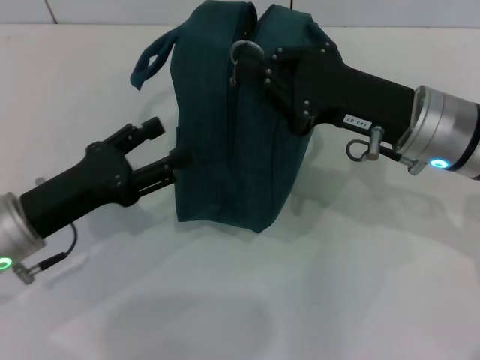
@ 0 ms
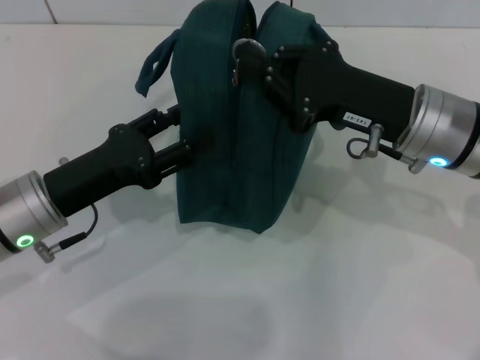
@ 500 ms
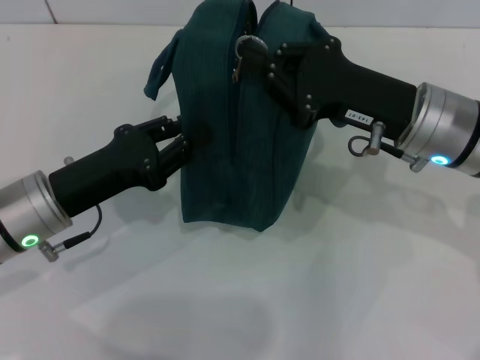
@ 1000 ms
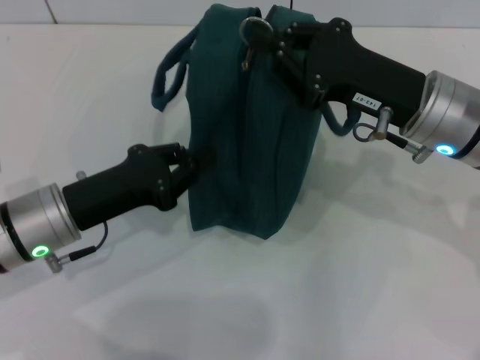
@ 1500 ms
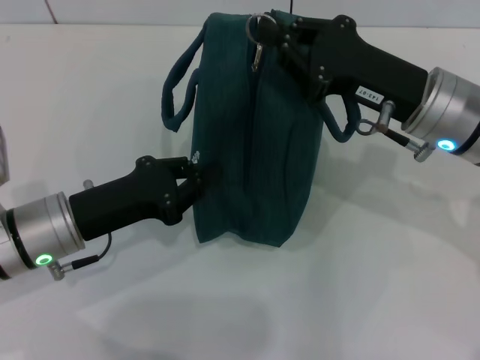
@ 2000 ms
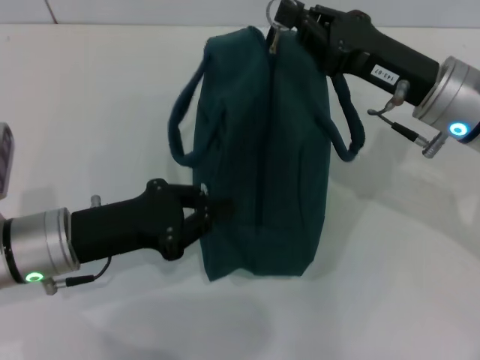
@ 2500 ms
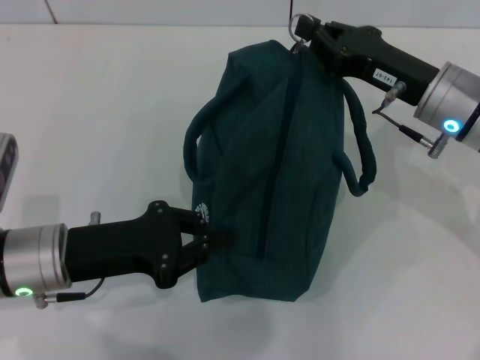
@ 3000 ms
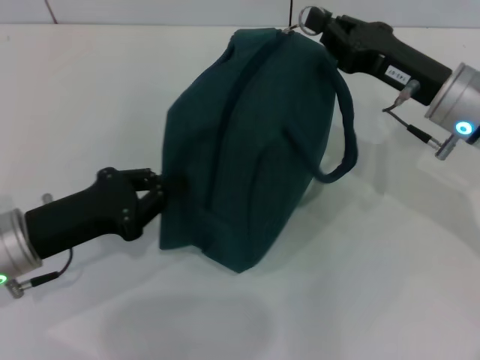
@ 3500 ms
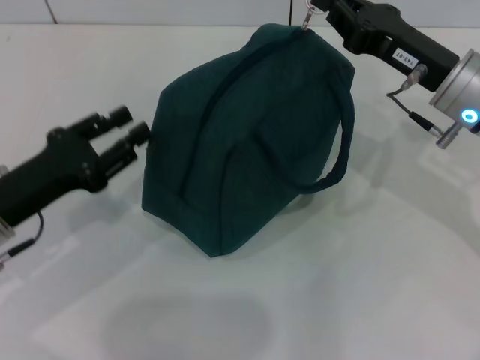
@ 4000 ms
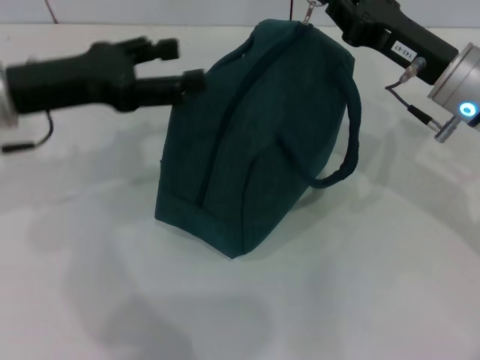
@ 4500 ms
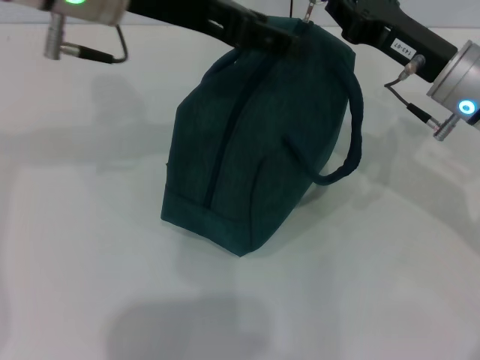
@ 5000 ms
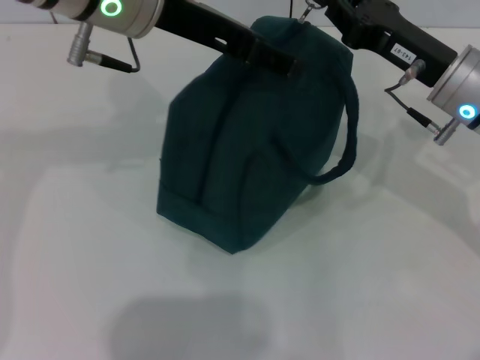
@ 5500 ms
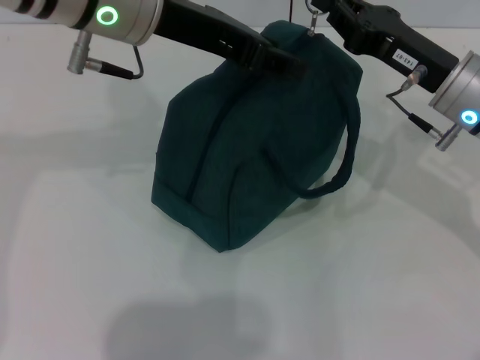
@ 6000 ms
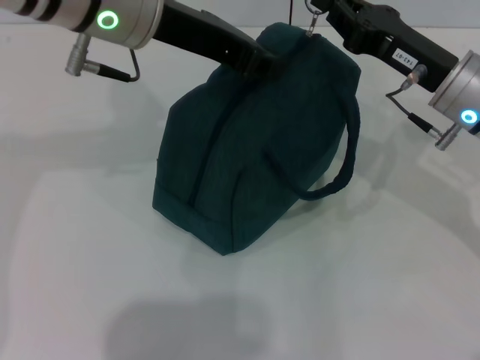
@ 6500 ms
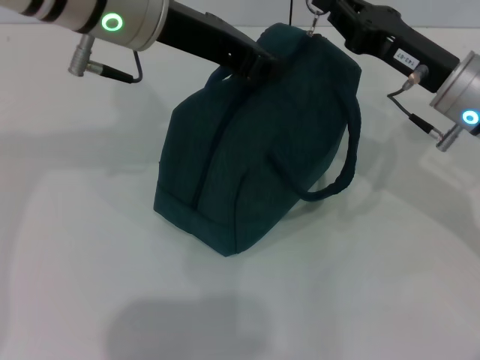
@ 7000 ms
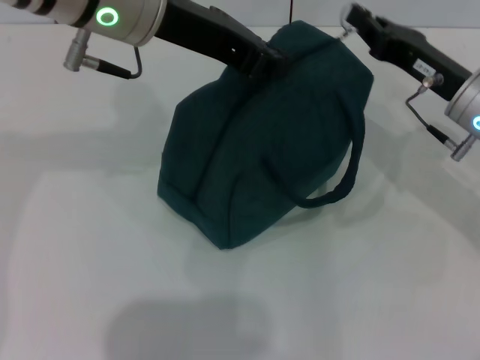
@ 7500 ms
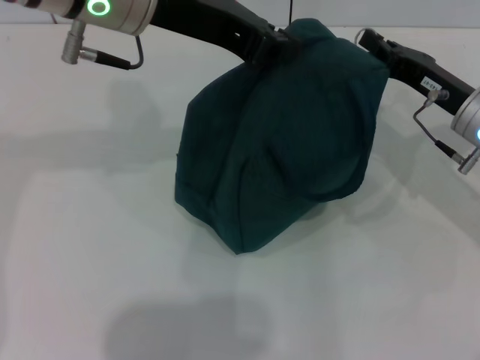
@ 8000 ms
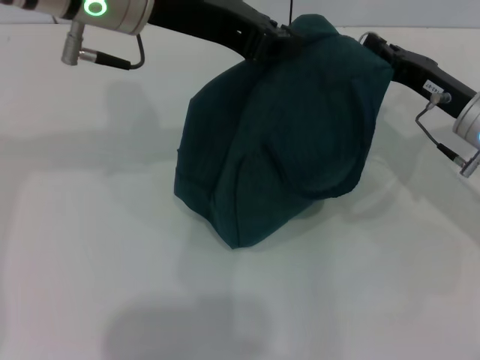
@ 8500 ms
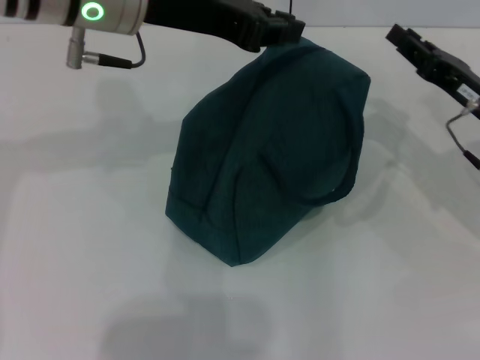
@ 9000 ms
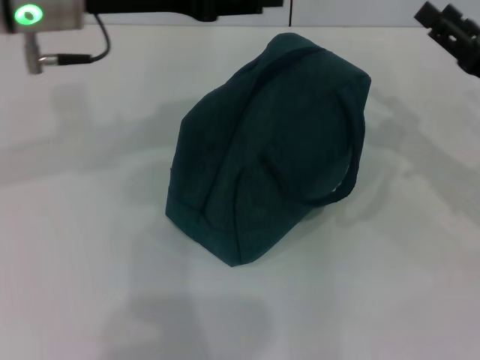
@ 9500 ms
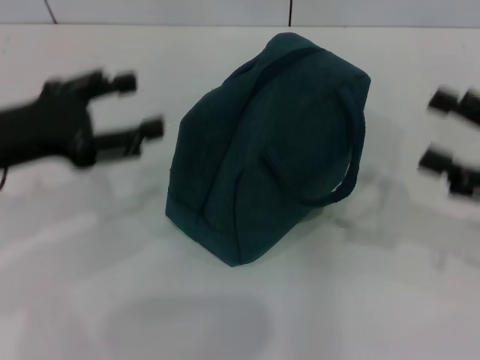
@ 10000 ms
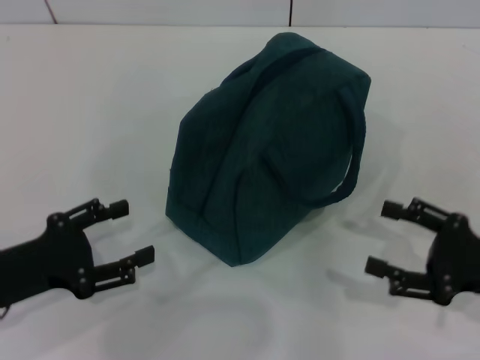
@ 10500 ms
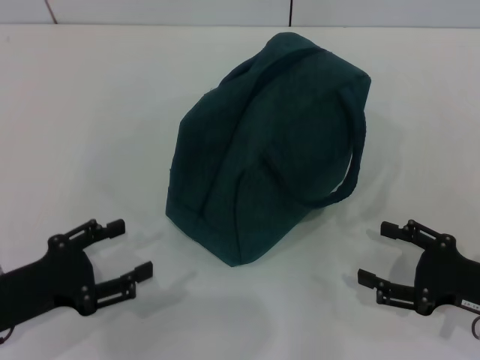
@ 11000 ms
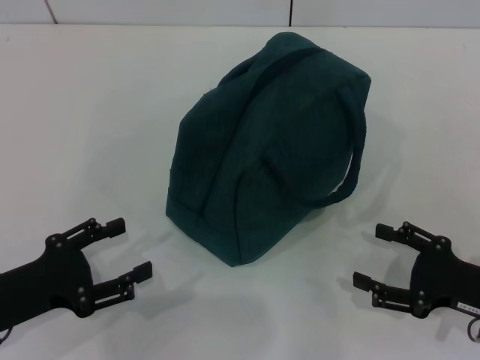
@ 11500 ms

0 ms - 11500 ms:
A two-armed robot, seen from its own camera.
Step, 0 ms - 8500 ms: Zip up the lunch bag with your right hand.
Step, 9000 ms - 9500 ms: Hold the lunch bag with your left hand.
0 ms - 2000 ms: The left gripper closes.
2000 ms - 4000 ms: The left gripper shifts roughly 5 cm to the left.
4000 ms - 6000 ms: The left gripper travels upward, to the right and forward by some 25 cm, and opens up.
6000 ms - 7500 ms: The left gripper closes.
7500 ms - 9500 ms: The left gripper travels to the left by some 5 cm, and opens its fingers; the right gripper heads to the right, covering approximately 5 cm, and opens up.
9500 ms - 11500 ms: The left gripper shifts some 30 cm downward, backward and to the left, and opens. The right gripper travels backward and downward by about 15 cm.

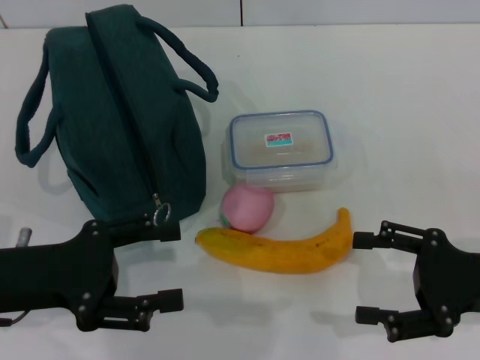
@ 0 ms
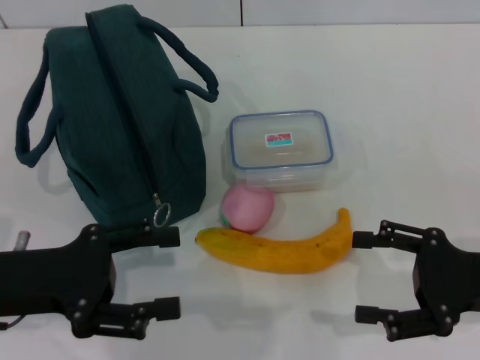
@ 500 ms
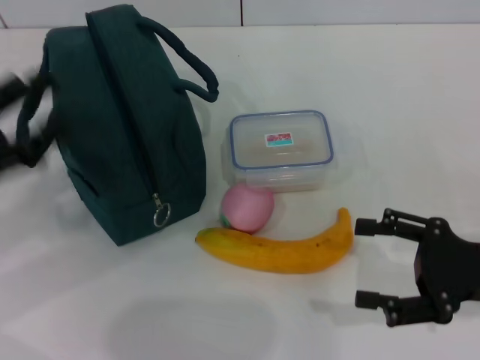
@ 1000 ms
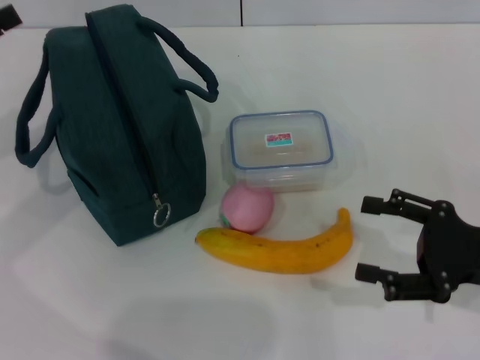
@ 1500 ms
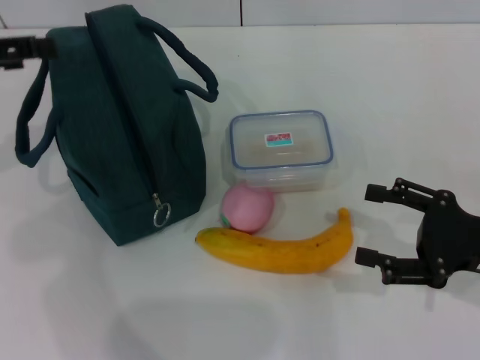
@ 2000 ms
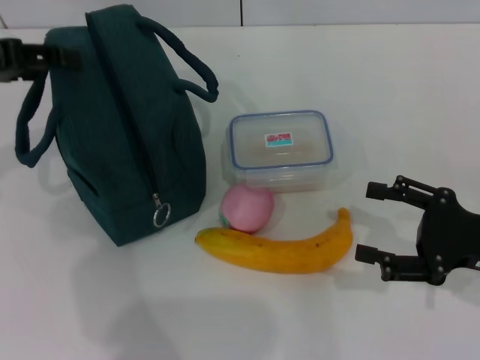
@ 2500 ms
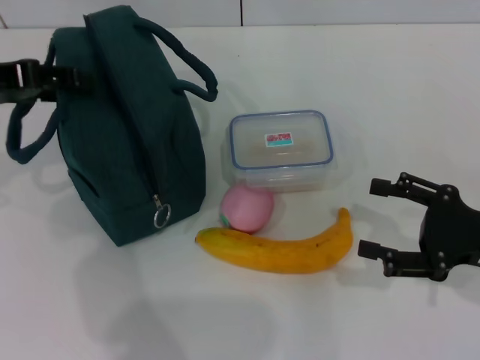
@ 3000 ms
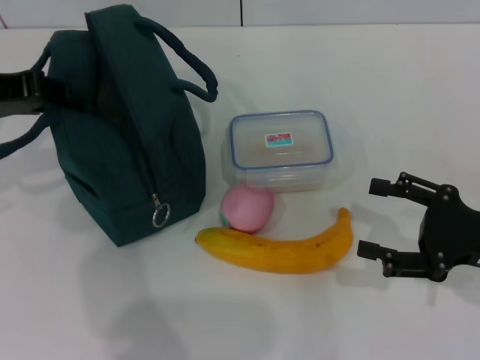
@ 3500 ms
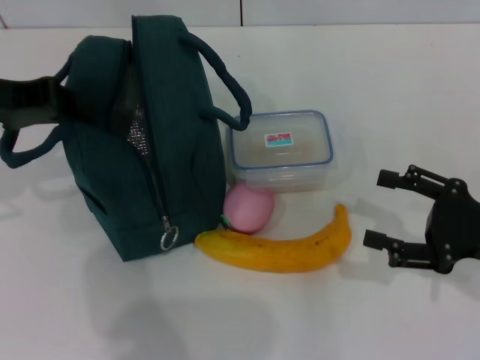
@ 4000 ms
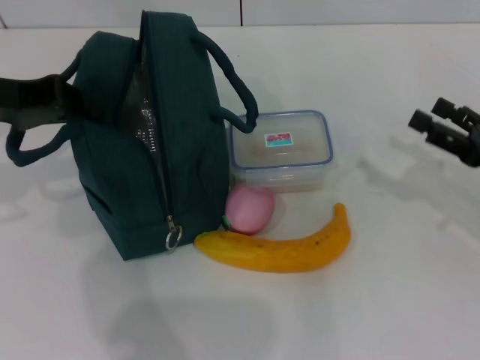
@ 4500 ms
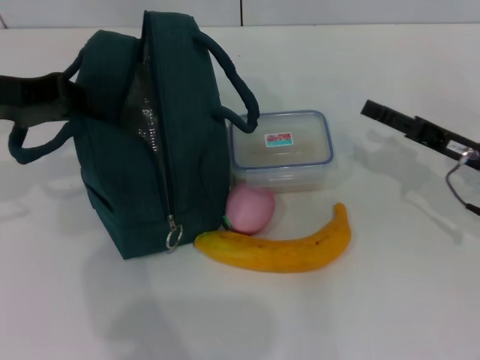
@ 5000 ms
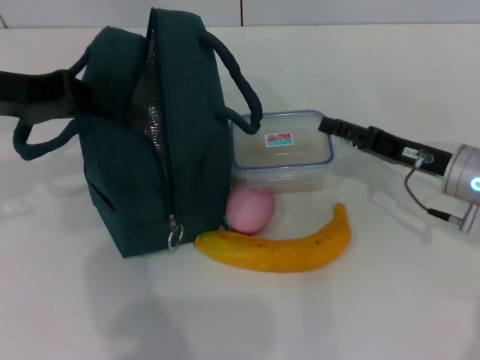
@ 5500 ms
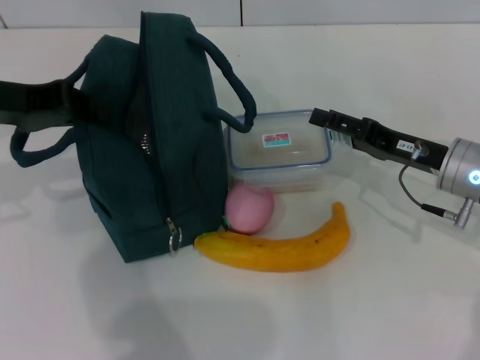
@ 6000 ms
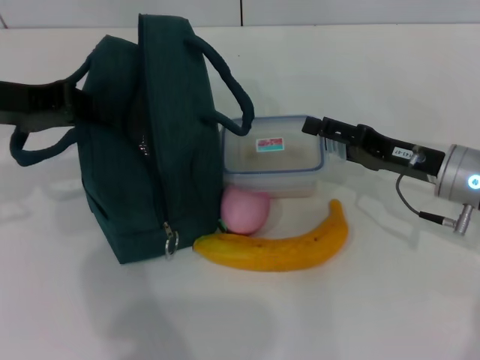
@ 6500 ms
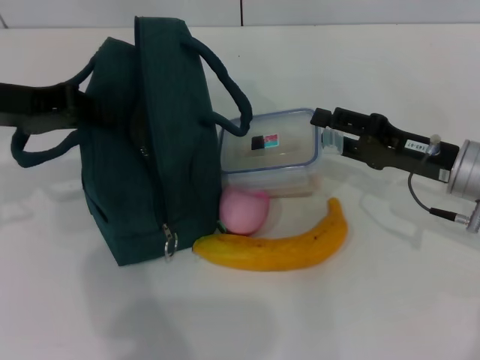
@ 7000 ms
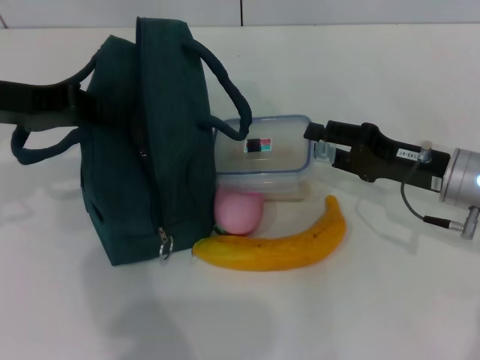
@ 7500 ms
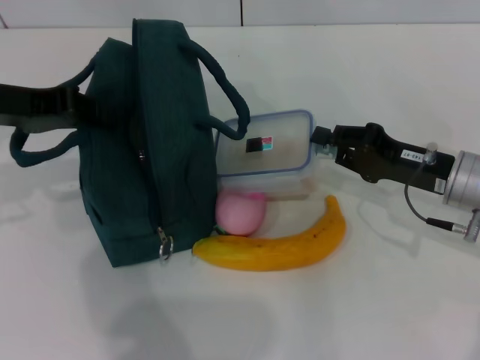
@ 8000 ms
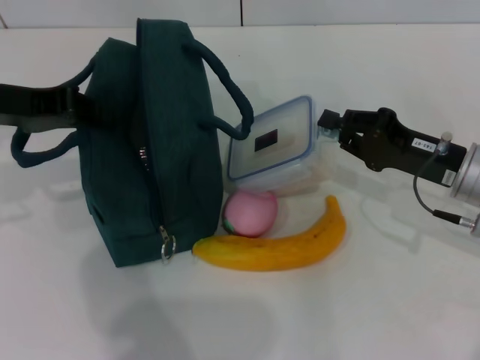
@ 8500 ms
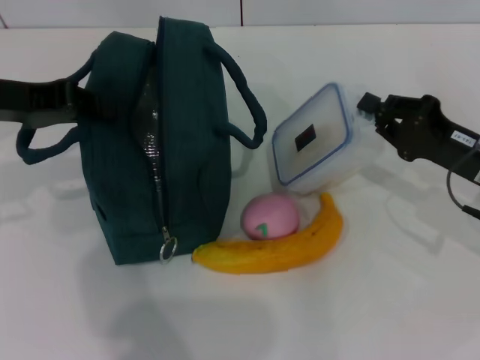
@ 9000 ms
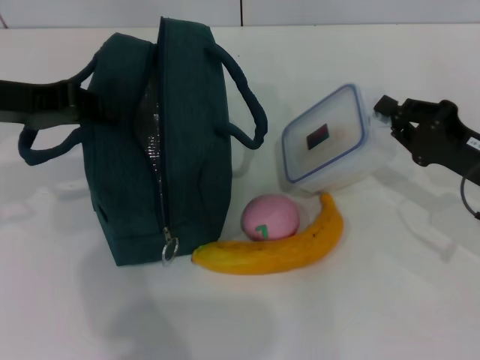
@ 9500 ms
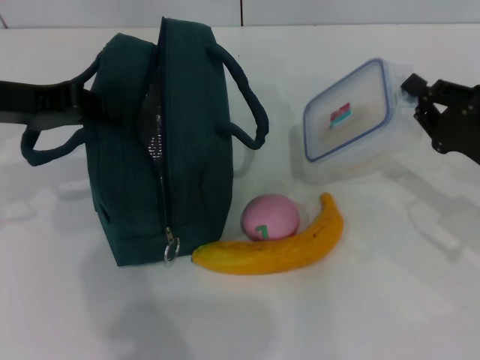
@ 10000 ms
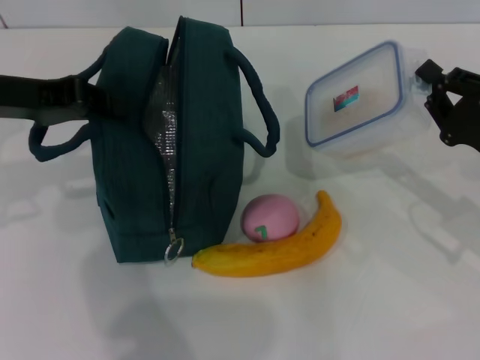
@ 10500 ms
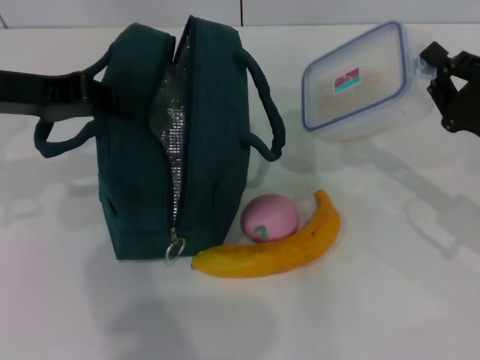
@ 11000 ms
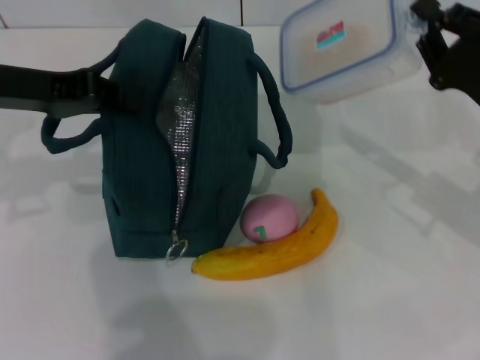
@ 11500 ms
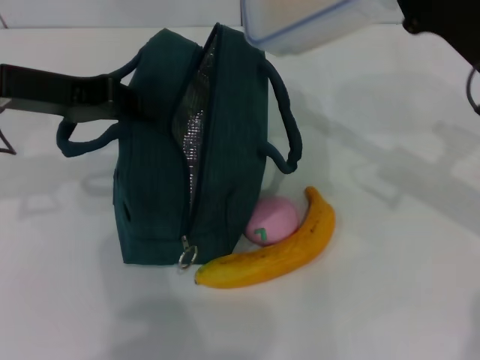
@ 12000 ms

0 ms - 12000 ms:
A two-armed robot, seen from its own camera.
Step, 0 ms - 3500 ms: Hold the lunch bag with your left hand.
Step, 4000 ms - 8000 ms: Pick up the lunch box with your right hand.
0 ms - 2000 ms: The left gripper moves upward, forward and to the left, some 15 cm.
2000 ms - 4000 ms: The left gripper ends up some 5 cm from where it was, and closes its fingers.
4000 ms - 6000 ms: The right gripper heads forward and to the left, covering some 10 cm.
6000 ms - 8000 ms: The right gripper closes its fingers.
8000 ms - 10000 ms: The right gripper moves to the right, about 5 cm.
10000 ms - 12000 ms: The right gripper shifts approximately 10 cm upward.

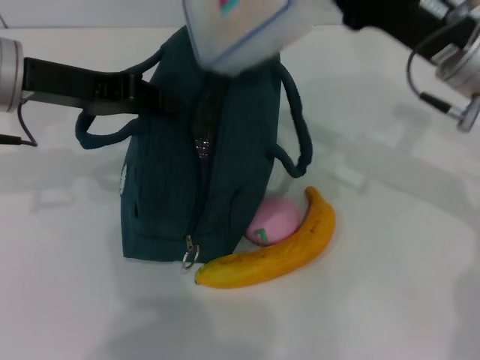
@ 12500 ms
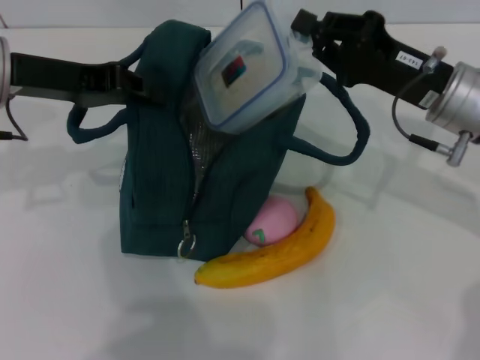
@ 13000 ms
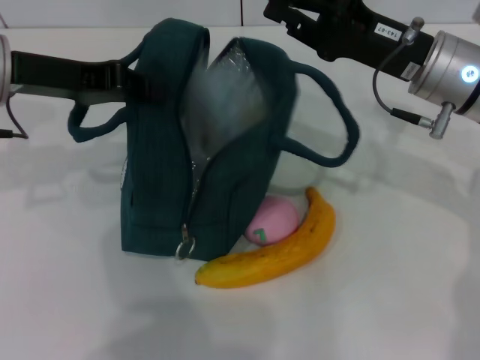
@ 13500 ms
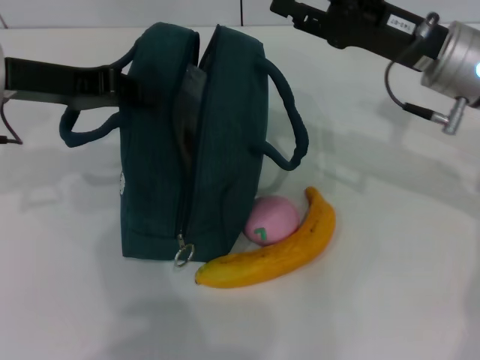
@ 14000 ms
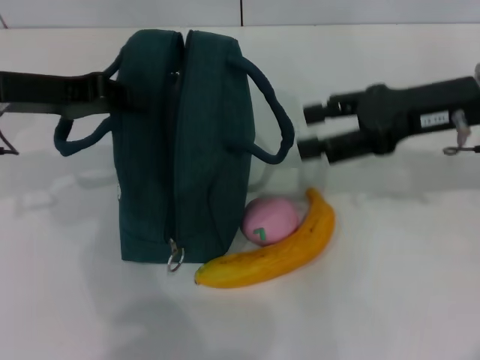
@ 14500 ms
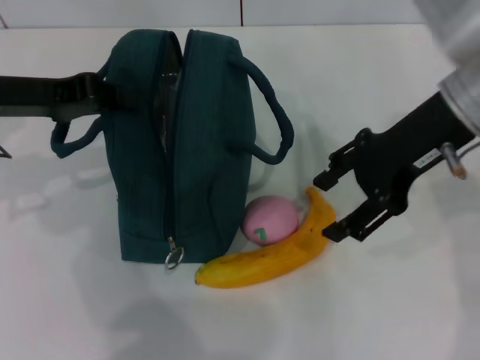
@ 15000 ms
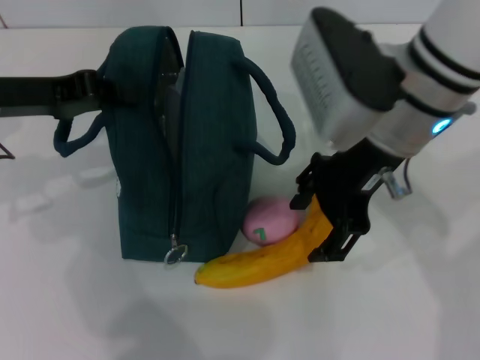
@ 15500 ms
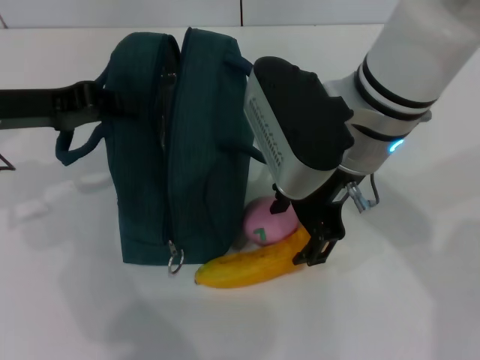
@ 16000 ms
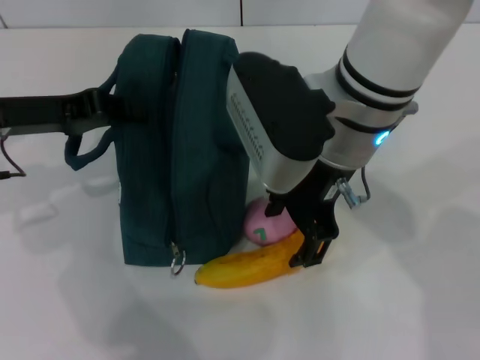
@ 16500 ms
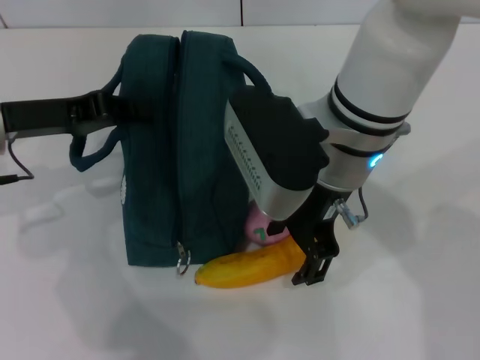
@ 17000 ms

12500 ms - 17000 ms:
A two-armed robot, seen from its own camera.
12500 ms - 14500 ms: The right gripper opens up.
14500 ms - 17000 ms: The right gripper travels to the left by roughly 15 cm.
